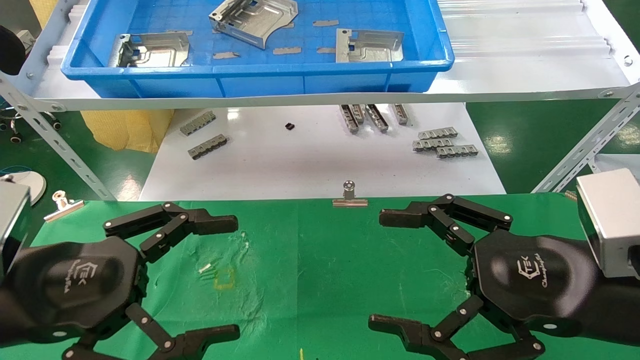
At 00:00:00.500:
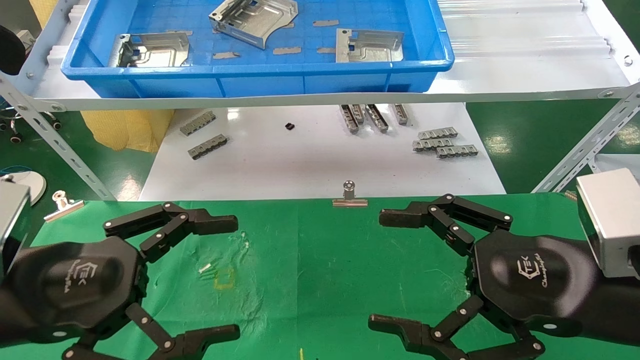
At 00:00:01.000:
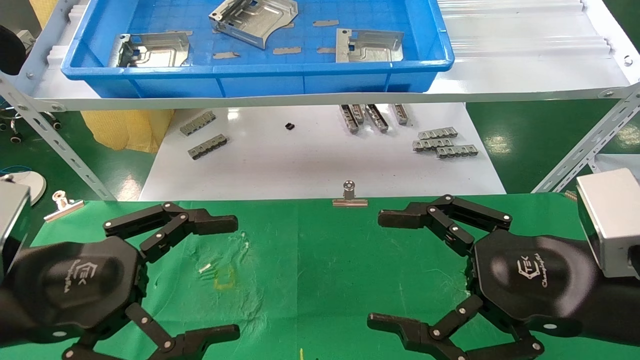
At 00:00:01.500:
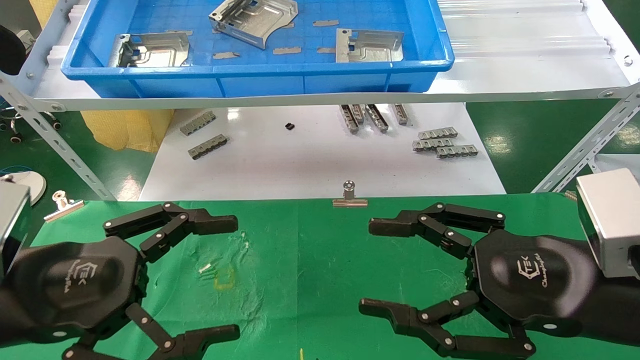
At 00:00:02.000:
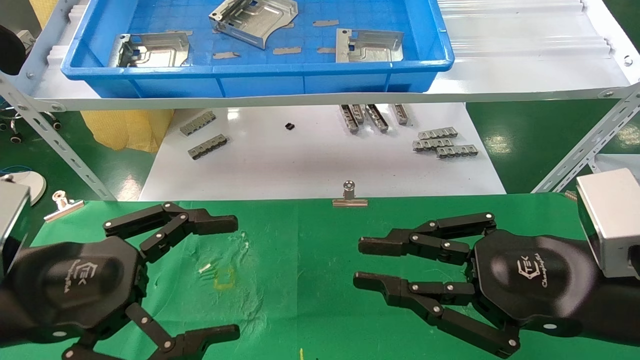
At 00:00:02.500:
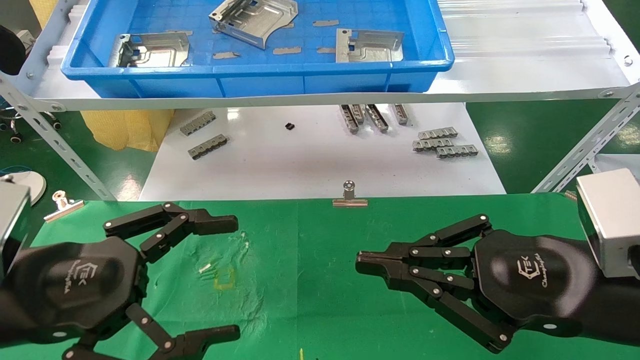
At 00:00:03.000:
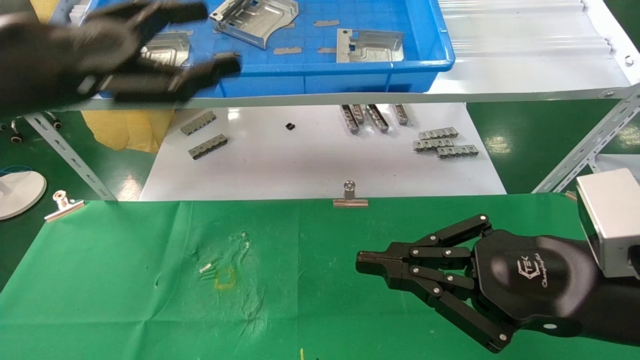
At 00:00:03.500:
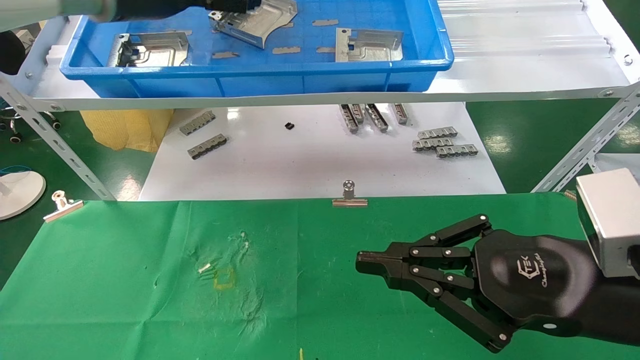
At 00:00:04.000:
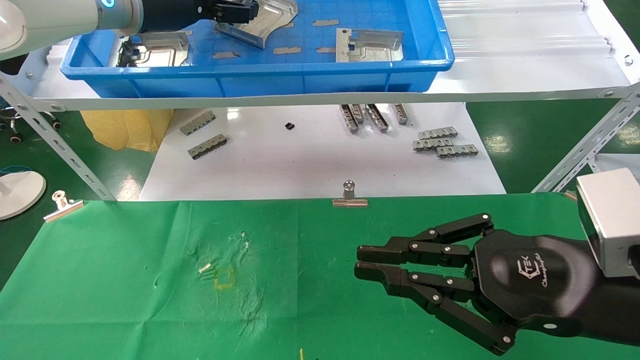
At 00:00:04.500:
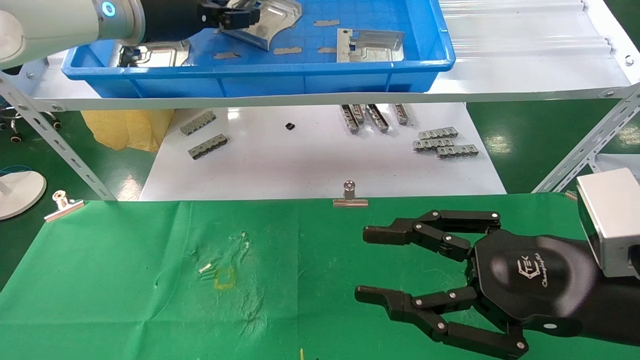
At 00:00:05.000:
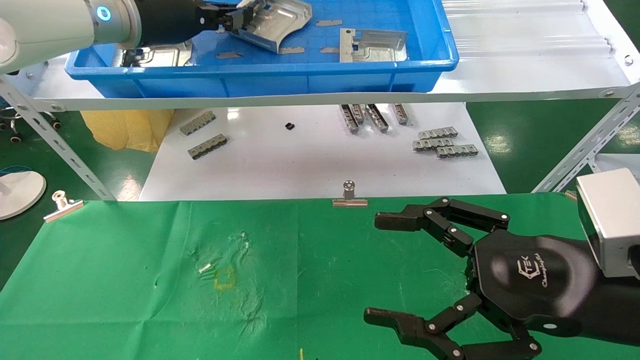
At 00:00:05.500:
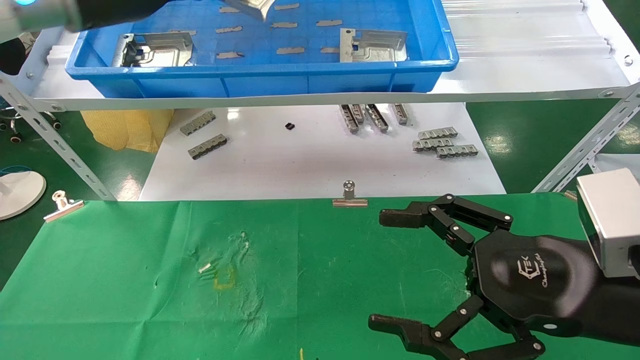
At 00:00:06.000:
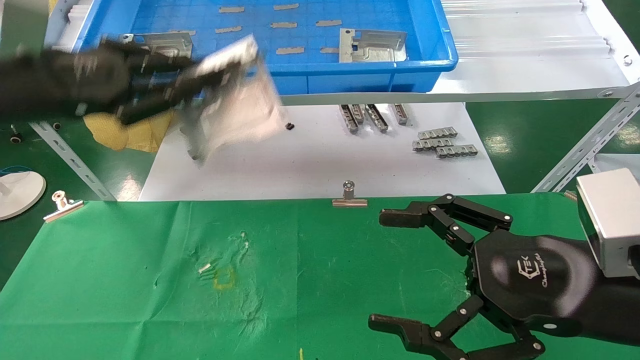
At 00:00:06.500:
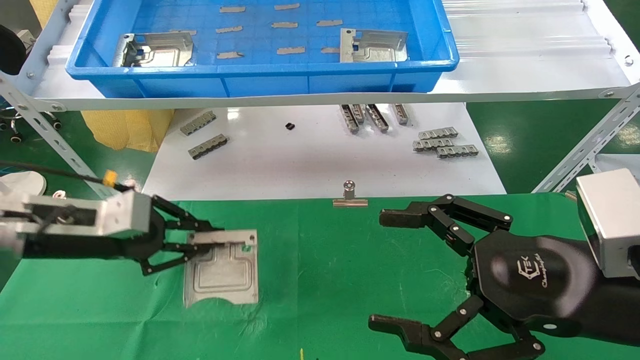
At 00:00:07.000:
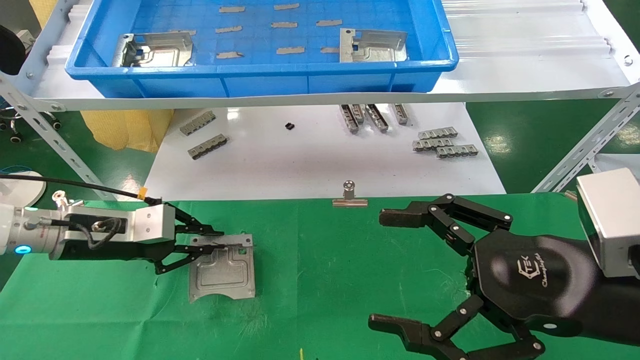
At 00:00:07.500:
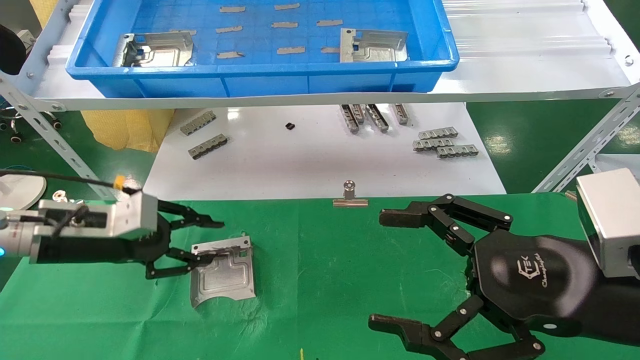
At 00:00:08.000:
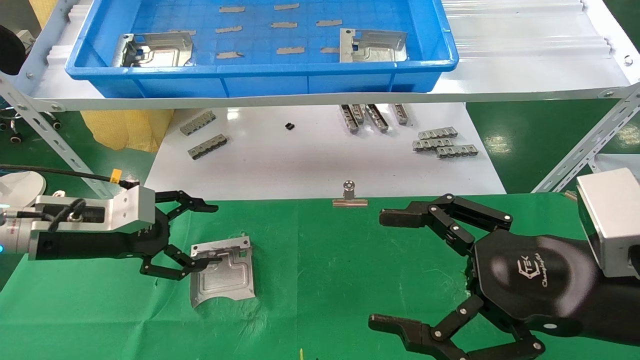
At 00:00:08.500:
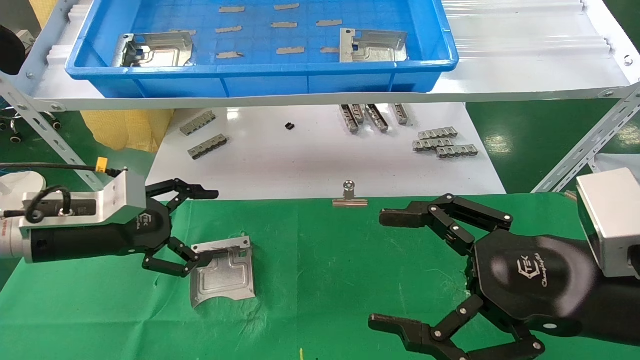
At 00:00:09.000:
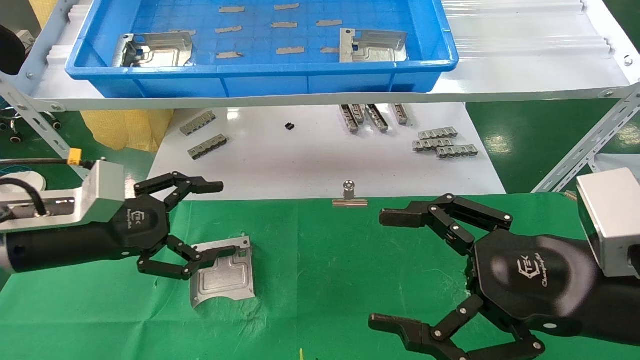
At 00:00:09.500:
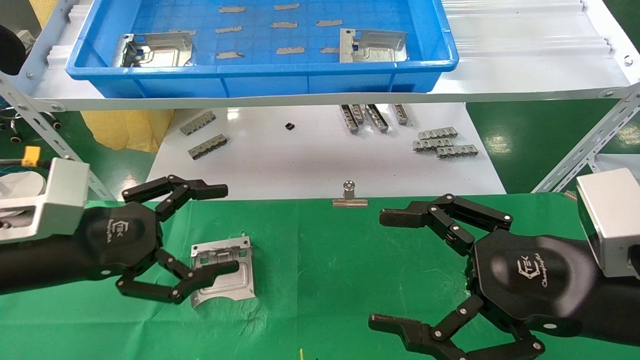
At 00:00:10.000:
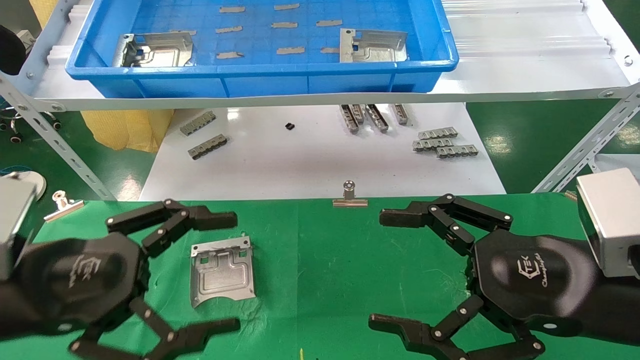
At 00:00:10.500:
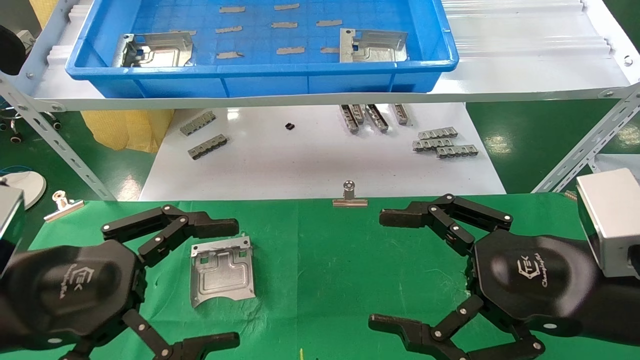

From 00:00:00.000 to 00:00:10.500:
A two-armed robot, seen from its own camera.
Task of the whole recording: use the mechanical arm to pick up the parts and place them on the table.
Step, from 00:00:03.000 to 00:00:04.500: Pick up the hard drive bracket from the feeding area.
Step, from 00:00:05.000 to 00:00:07.500: Place the hard drive bracket into the box.
From 00:00:00.000 to 00:00:02.000: The right gripper closes up.
From 00:00:02.000 to 00:00:04.000: The left gripper moves forward and upward, some 35 cm.
From 00:00:04.000 to 00:00:06.500: The right gripper opens its fingers; the left gripper goes about 25 cm downward and to the left, and closes.
From 00:00:06.500 to 00:00:08.500: The left gripper opens its fingers.
From 00:00:08.500 to 00:00:10.500: The left gripper moves backward, about 15 cm.
